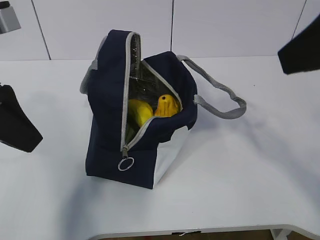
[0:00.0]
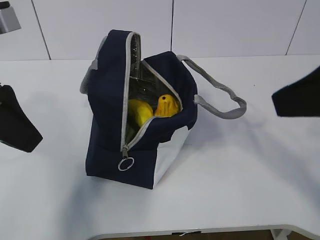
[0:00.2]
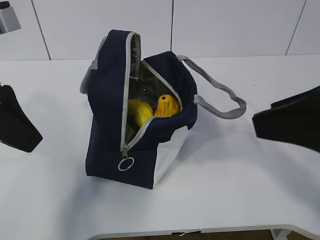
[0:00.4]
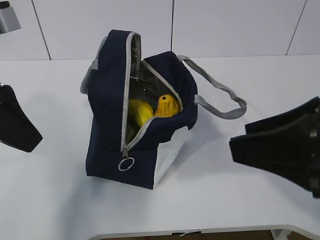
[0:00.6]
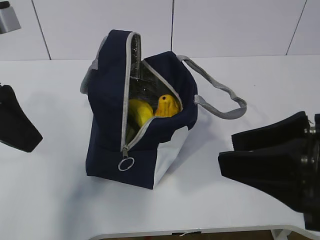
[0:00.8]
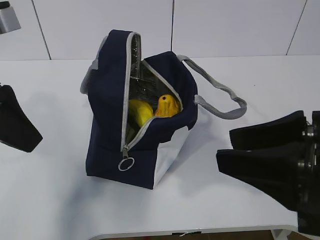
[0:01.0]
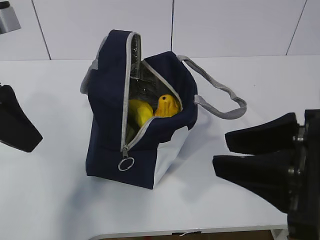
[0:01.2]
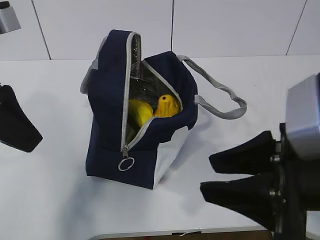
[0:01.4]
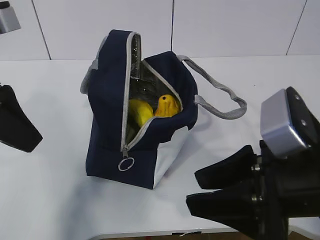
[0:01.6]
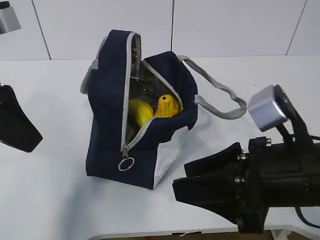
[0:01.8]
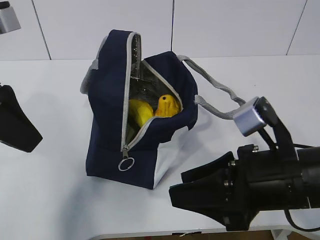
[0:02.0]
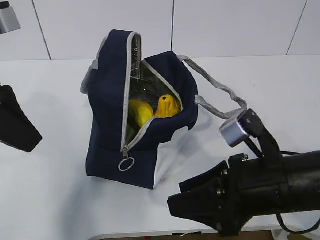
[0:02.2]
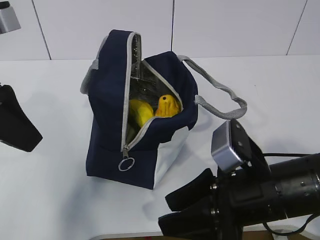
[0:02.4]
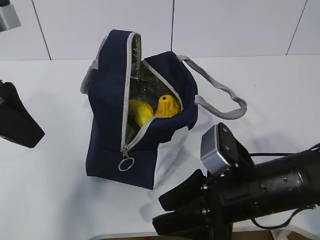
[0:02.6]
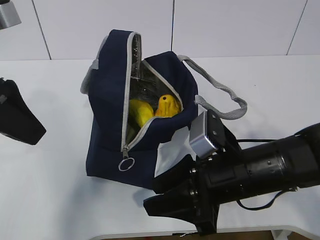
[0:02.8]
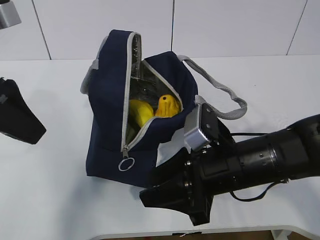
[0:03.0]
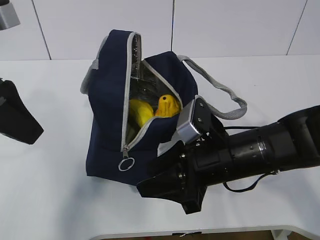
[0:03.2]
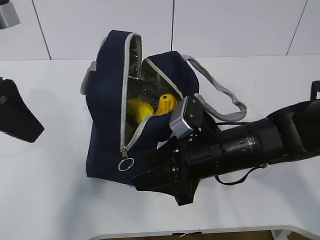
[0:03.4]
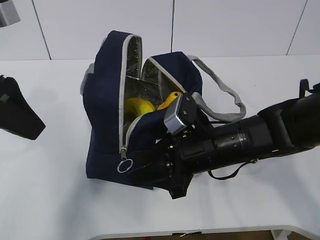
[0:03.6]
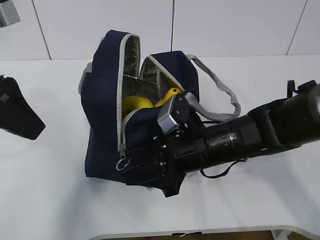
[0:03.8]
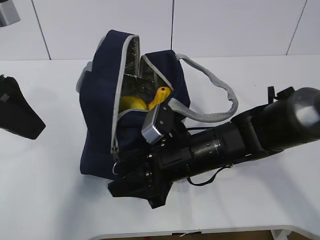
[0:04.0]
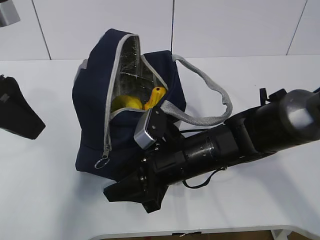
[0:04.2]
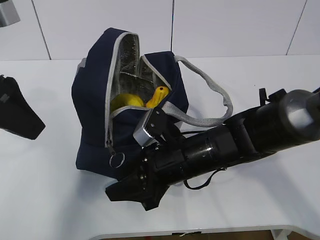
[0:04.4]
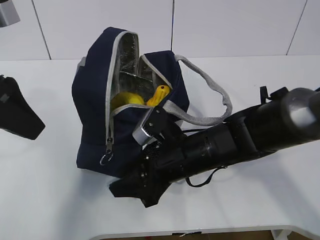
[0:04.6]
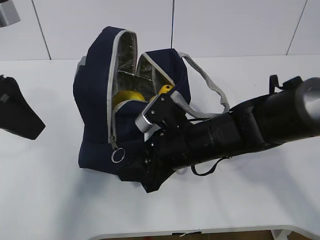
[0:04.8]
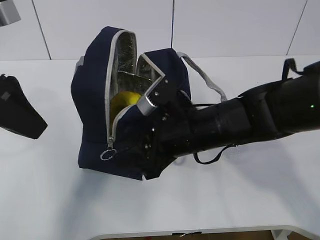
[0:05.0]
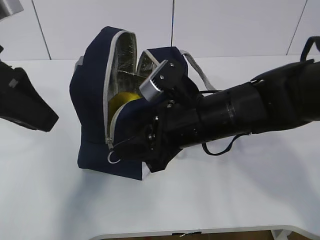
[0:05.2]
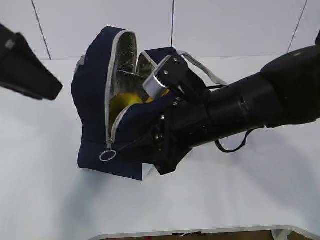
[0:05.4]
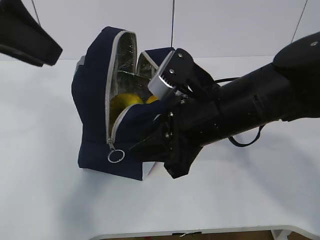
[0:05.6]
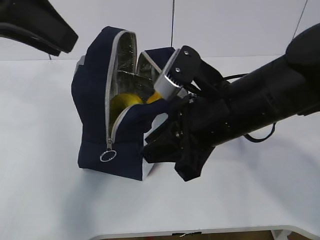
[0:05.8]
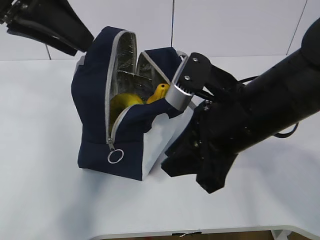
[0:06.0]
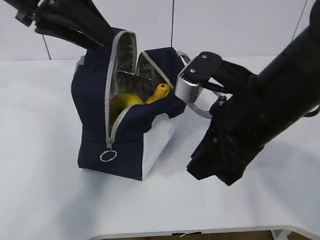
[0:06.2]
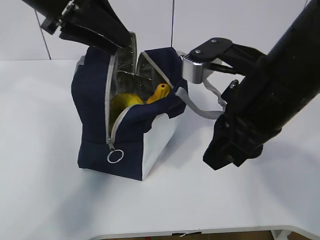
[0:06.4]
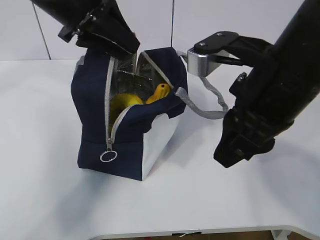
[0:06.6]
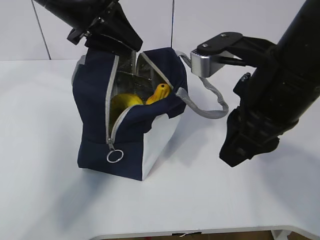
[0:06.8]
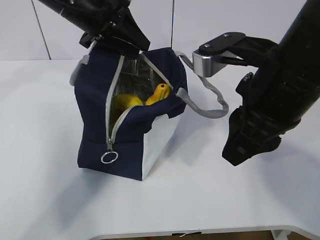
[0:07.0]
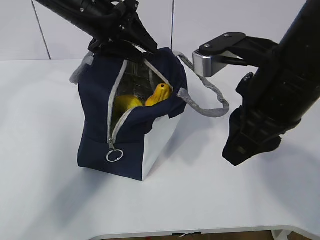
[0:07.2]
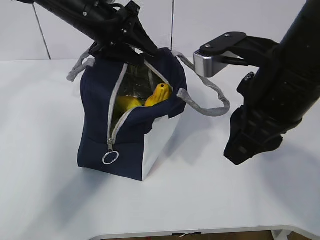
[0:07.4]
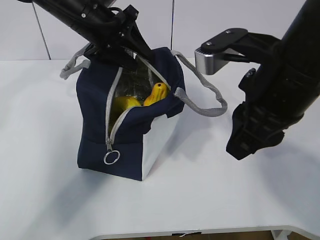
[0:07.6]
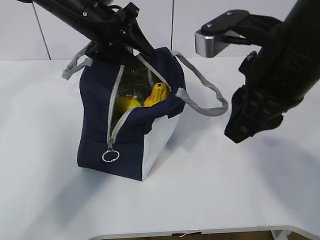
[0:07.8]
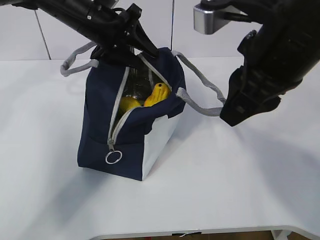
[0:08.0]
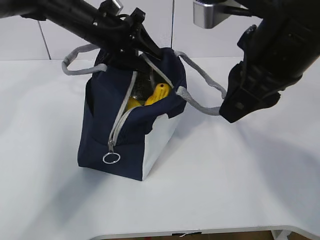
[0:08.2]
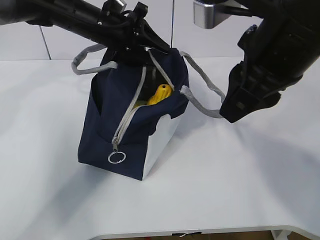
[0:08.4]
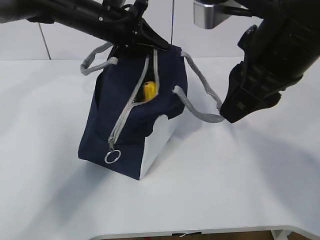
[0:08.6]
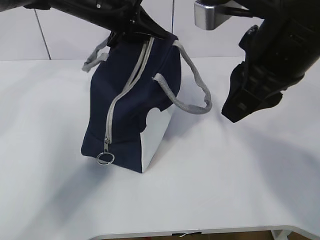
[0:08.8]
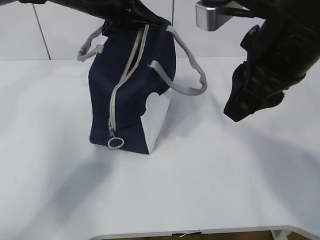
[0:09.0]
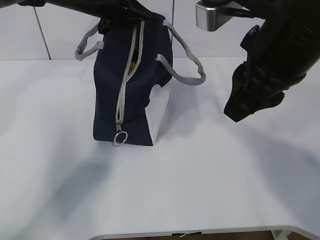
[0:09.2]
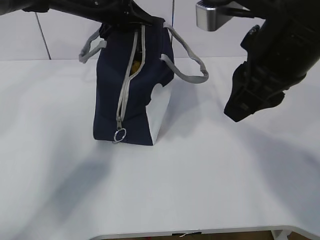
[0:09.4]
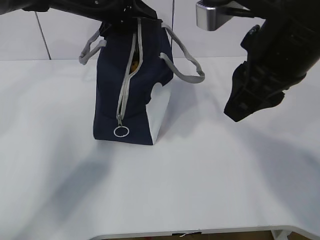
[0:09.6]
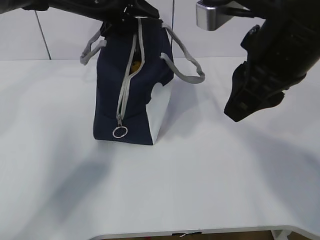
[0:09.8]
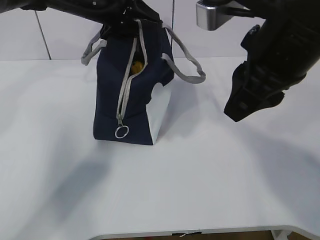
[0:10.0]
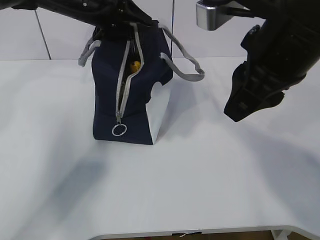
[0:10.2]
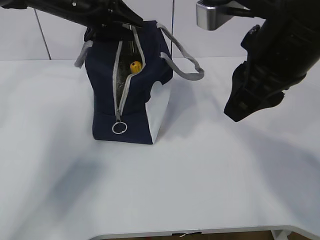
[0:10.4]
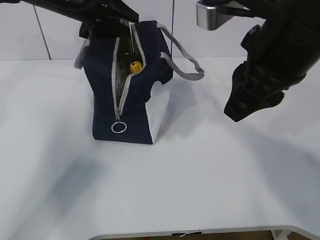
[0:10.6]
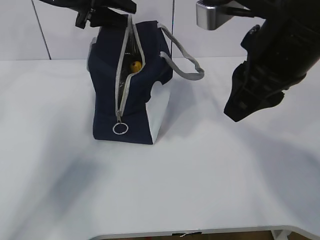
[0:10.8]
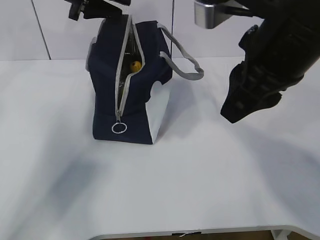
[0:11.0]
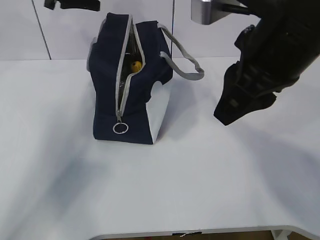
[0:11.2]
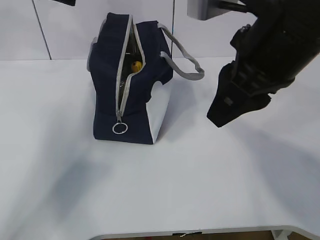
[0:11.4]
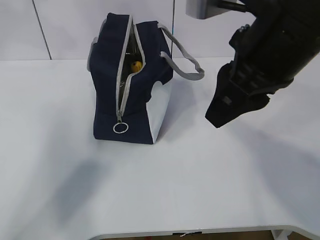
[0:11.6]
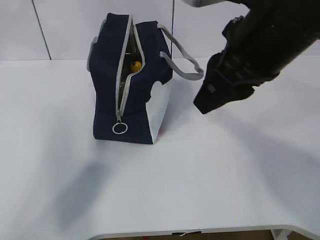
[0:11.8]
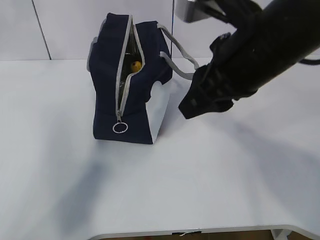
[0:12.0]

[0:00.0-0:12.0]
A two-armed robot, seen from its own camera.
Step, 0:00.0 to 0:11.6: Grab the lunch bag with your left hand.
0:00.0 to 0:01.6: The right gripper travels downward by about 15 cm.
0:01.6 to 0:03.0: The right gripper is displaced forward and downward by approximately 10 cm.
0:03.0 to 0:04.4: The right gripper moves to the left, roughly 5 cm.
0:04.4 to 0:06.0: The left gripper shifts some 10 cm upward and forward; the right gripper shifts about 15 cm upward and to the right.
0:06.0 to 0:07.6: The left gripper heads forward and downward, covering roughly 20 cm, and opens up, while the right gripper goes some 5 cm upward.
0:07.6 to 0:09.0: The left gripper closes.
0:09.0 to 0:10.4: The left gripper opens up.
0:10.4 to 0:12.0: The left gripper travels upward, backward and to the left by roughly 20 cm.

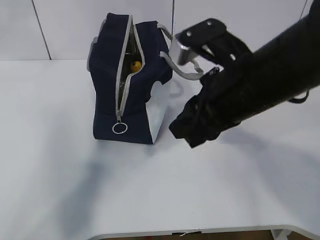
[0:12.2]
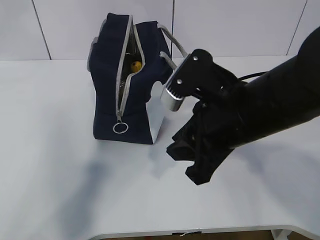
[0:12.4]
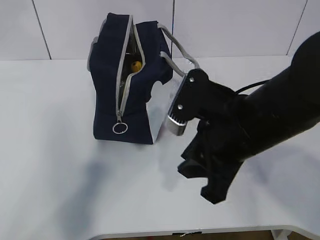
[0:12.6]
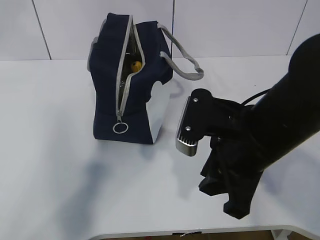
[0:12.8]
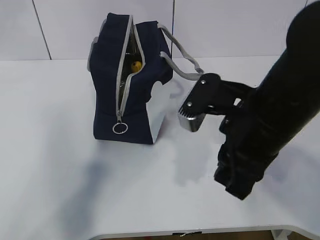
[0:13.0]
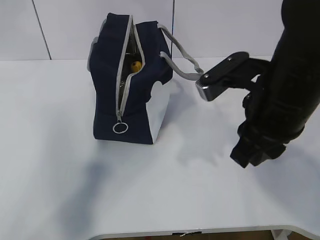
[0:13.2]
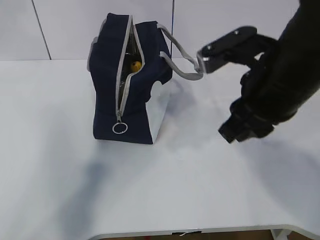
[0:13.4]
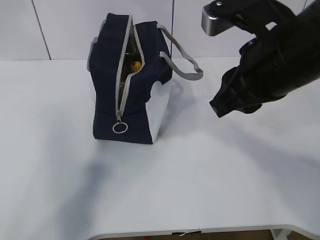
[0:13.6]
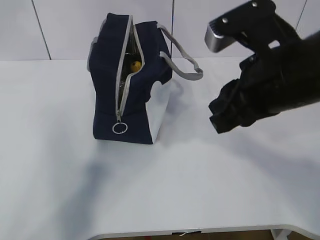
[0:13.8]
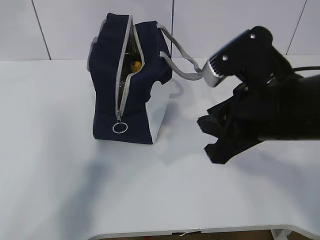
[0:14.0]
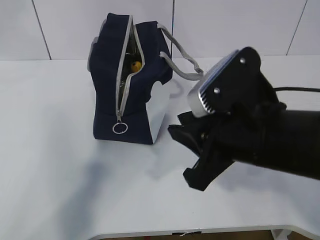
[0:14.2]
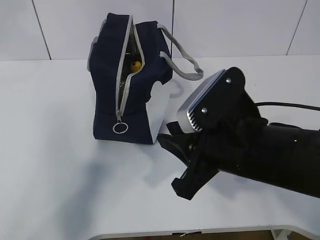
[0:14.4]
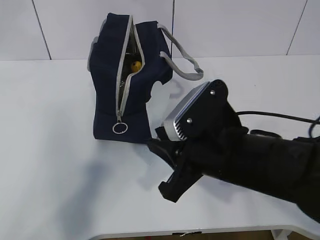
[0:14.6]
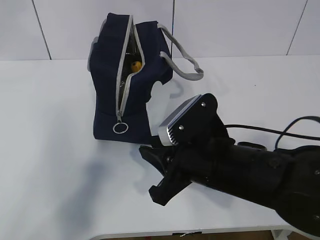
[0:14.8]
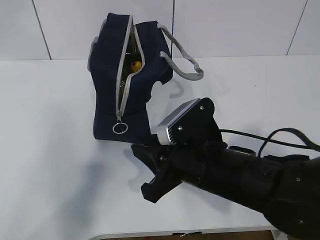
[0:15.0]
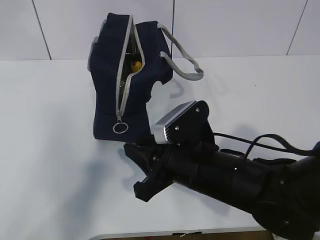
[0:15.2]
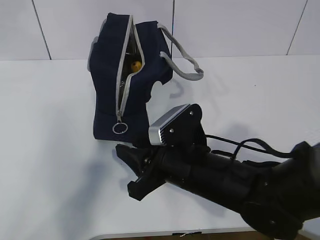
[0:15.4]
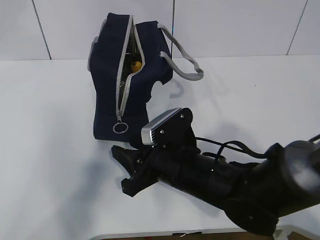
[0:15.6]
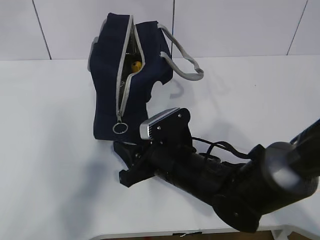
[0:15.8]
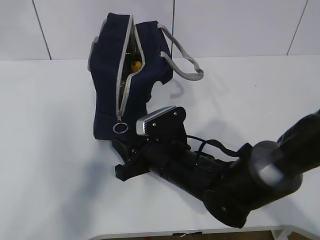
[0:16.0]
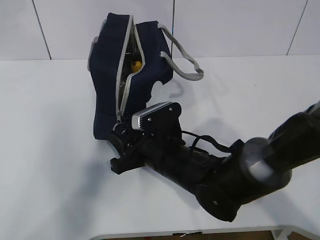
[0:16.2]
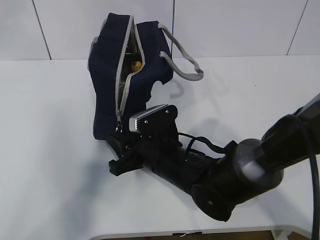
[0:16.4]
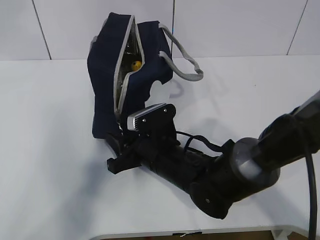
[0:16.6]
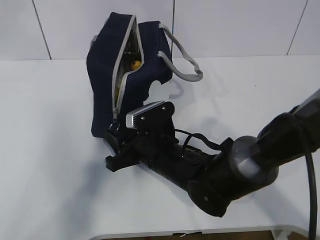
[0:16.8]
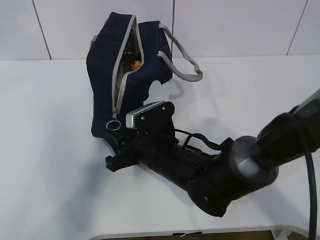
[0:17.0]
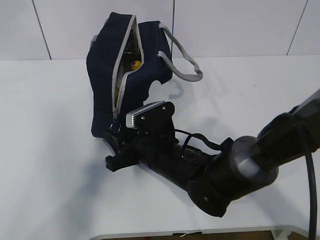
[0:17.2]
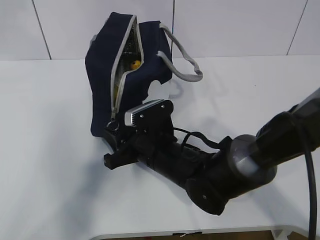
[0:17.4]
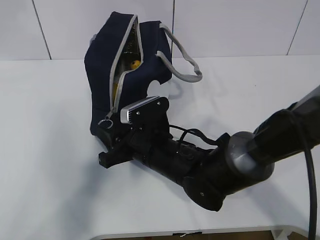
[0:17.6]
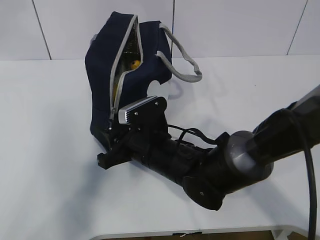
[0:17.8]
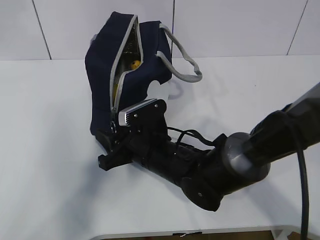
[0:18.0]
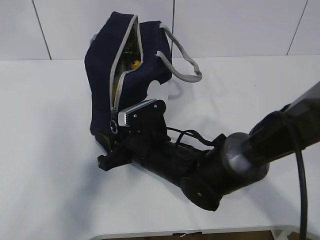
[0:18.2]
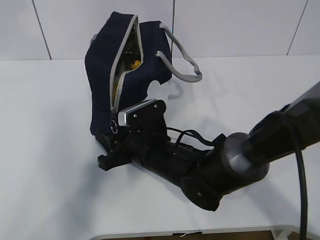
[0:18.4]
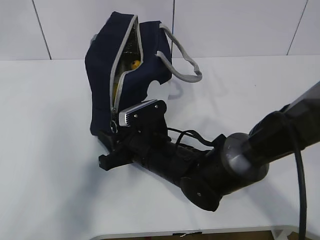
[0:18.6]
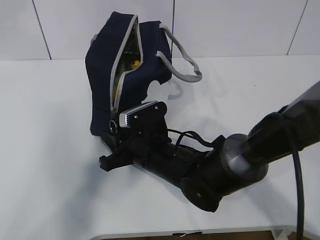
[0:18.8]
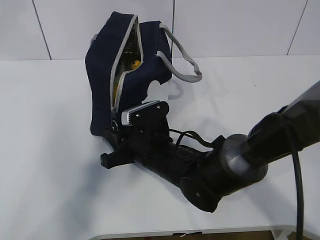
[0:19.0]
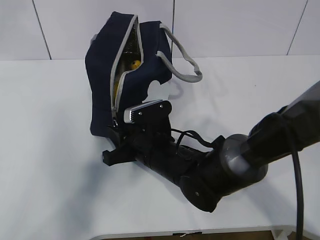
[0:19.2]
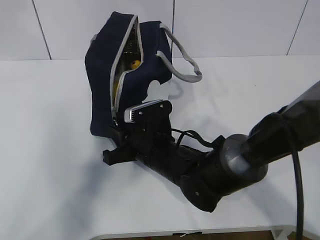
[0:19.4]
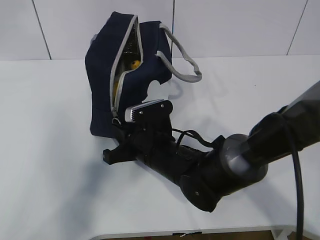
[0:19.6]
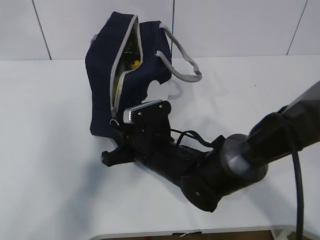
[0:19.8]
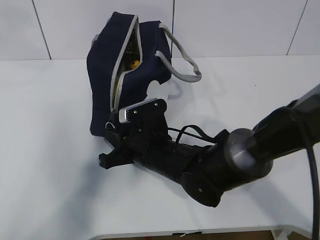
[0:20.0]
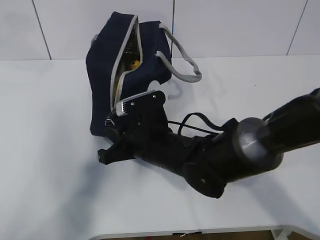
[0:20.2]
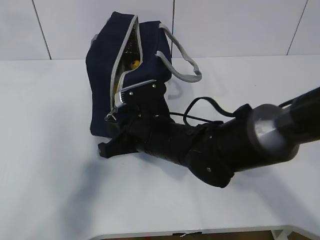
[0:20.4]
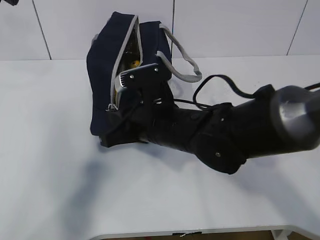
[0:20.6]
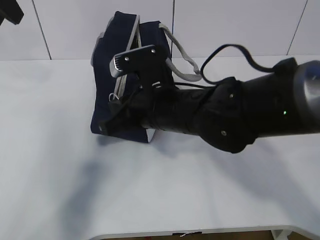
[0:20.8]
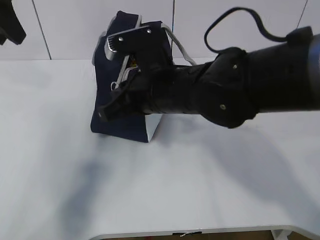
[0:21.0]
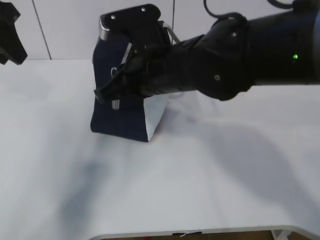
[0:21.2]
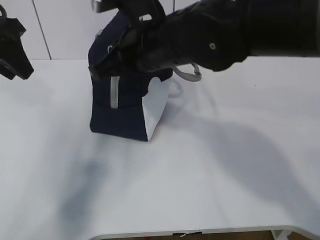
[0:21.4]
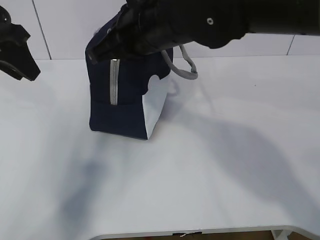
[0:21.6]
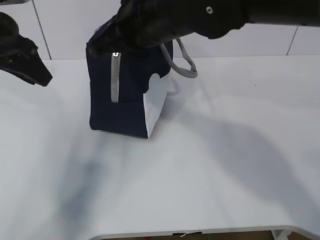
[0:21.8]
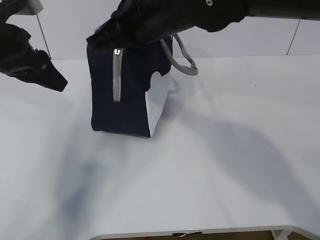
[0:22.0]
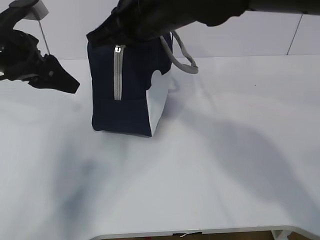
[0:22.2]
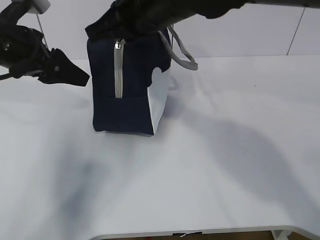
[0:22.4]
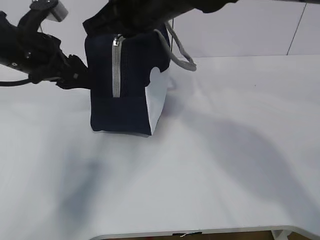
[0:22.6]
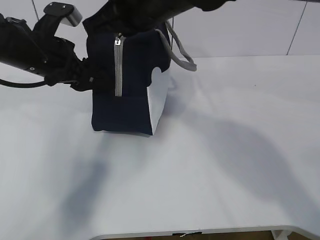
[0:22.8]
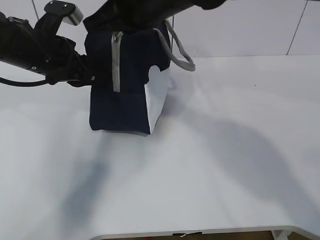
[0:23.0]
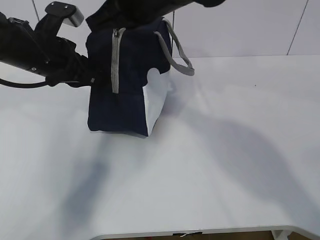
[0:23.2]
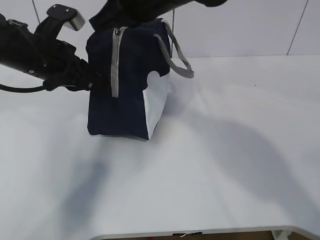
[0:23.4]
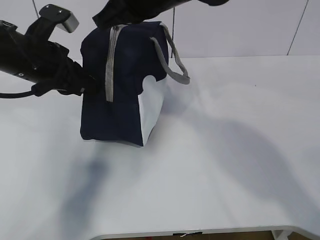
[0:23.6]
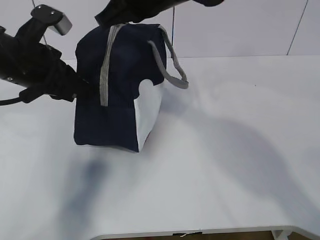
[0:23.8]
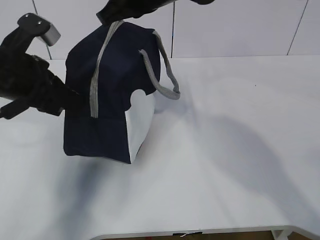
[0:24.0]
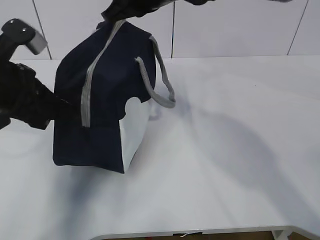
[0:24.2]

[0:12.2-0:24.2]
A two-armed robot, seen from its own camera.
Step, 0:12.2 to 0:14.2: Pull the zipper with your right hand.
0:12.2 to 0:13.8: The right gripper travels downward and back again, roughly 5 cm each way.
0:13.8 to 0:15.2: The right gripper is displaced downward and to the left by approximately 15 cm.
0:15.2 to 0:16.6: The right gripper moves forward and downward, approximately 10 cm.
0:16.6 to 0:18.2: The grippers make only small movements.
0:18.2 to 0:19.8: The right gripper closes up.
0:19.8 to 0:21.2: The right gripper travels upward by roughly 15 cm; the left gripper travels downward by approximately 10 cm.
0:21.2 to 0:22.6: The left gripper moves downward and to the right, roughly 10 cm, while the right gripper travels upward by roughly 10 cm.
0:22.6 to 0:24.2: The right gripper goes some 5 cm forward. The left gripper heads backward, covering roughly 10 cm, and closes its fingers.
